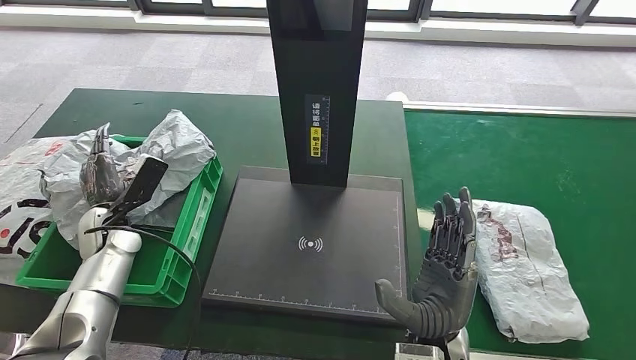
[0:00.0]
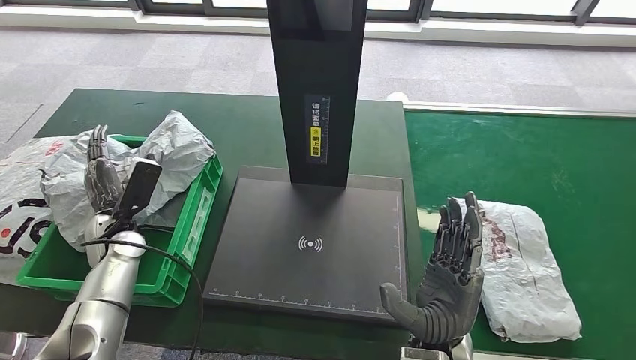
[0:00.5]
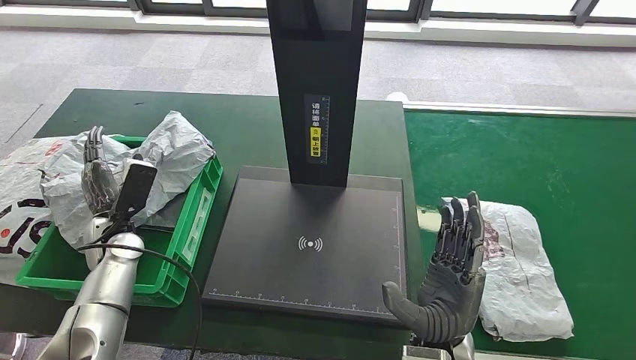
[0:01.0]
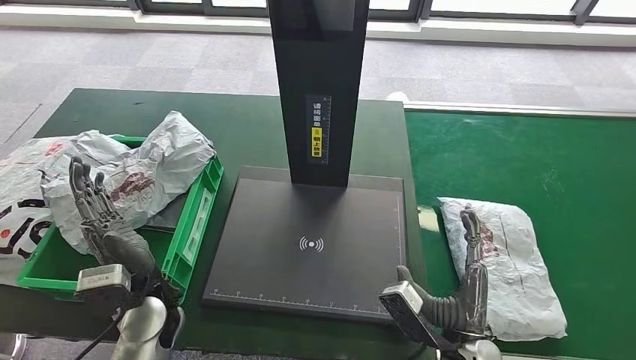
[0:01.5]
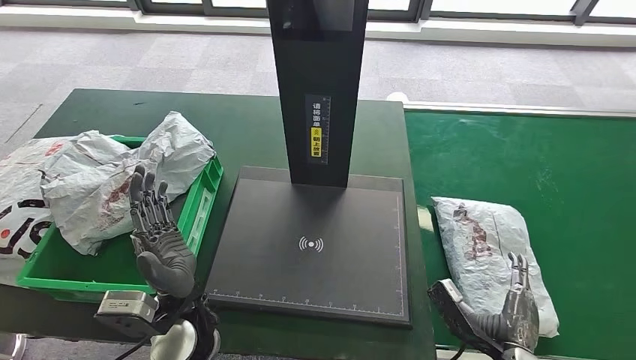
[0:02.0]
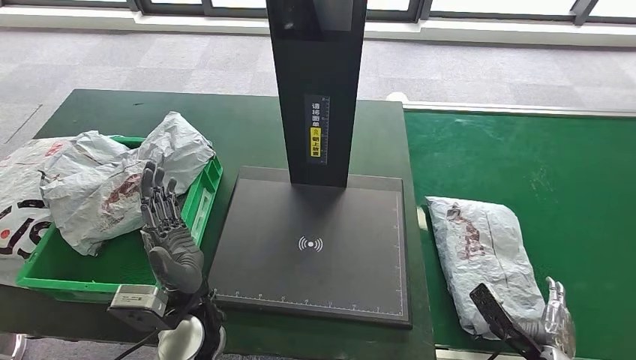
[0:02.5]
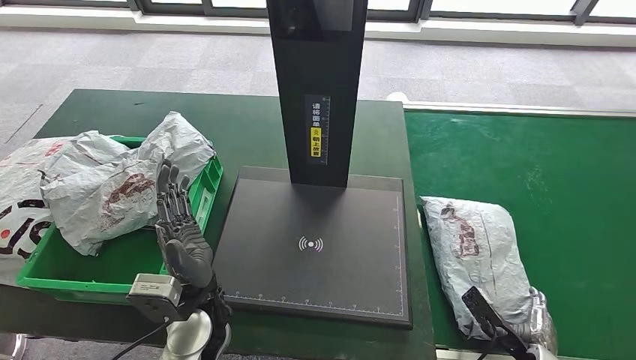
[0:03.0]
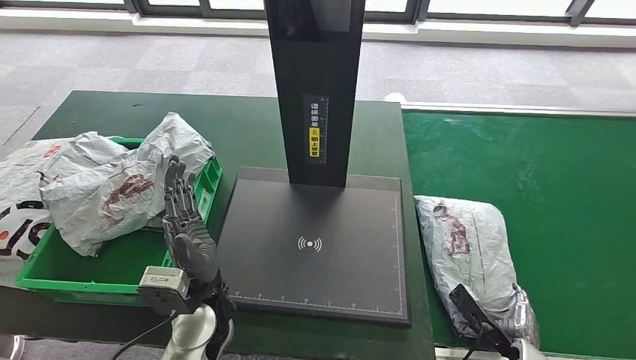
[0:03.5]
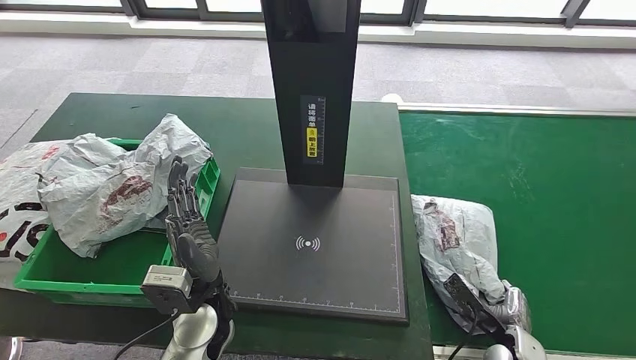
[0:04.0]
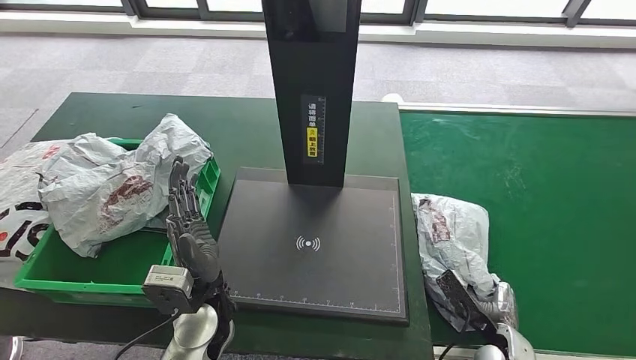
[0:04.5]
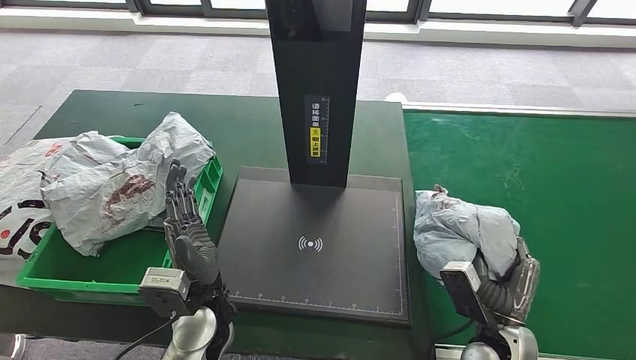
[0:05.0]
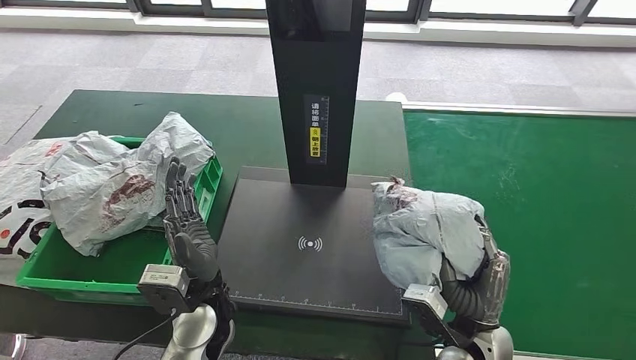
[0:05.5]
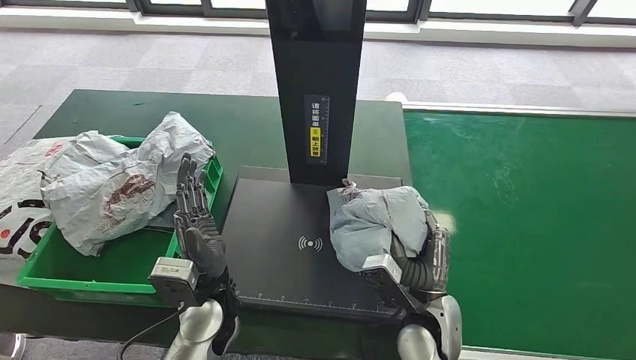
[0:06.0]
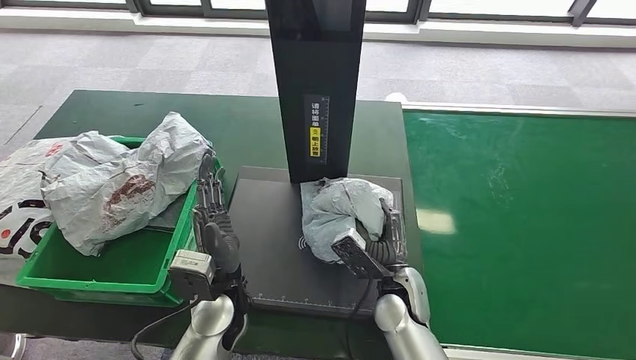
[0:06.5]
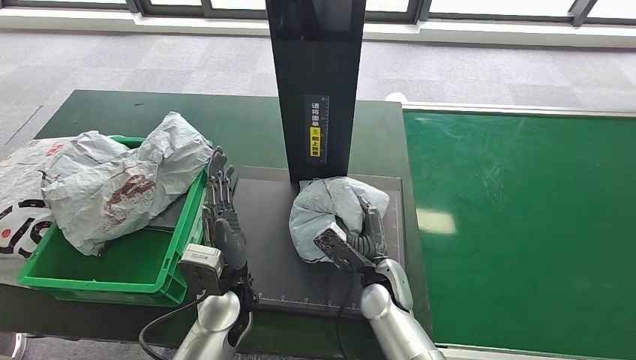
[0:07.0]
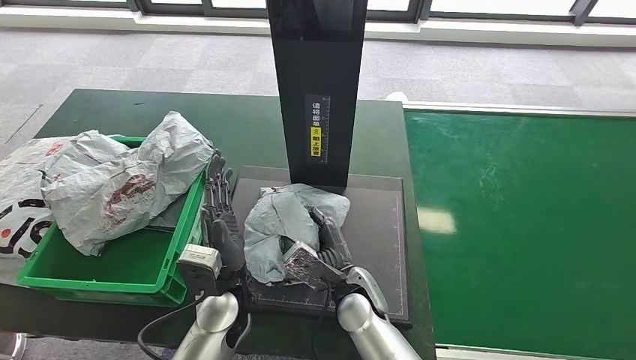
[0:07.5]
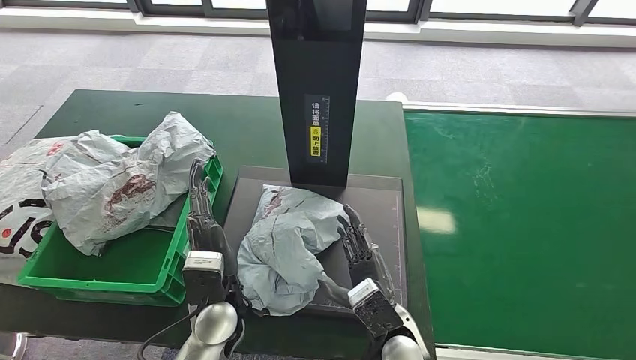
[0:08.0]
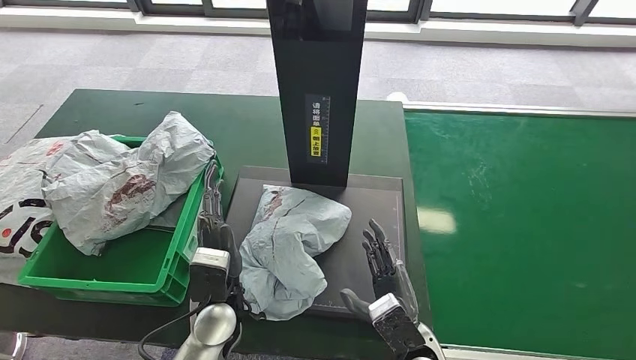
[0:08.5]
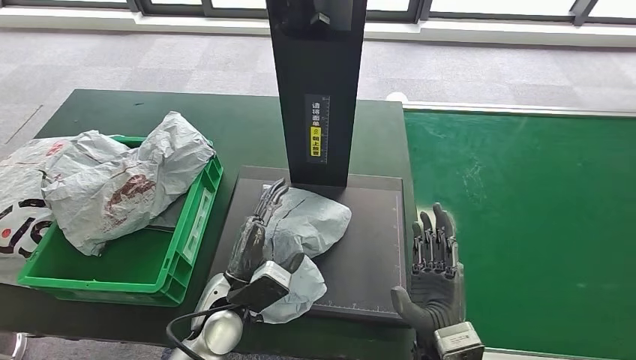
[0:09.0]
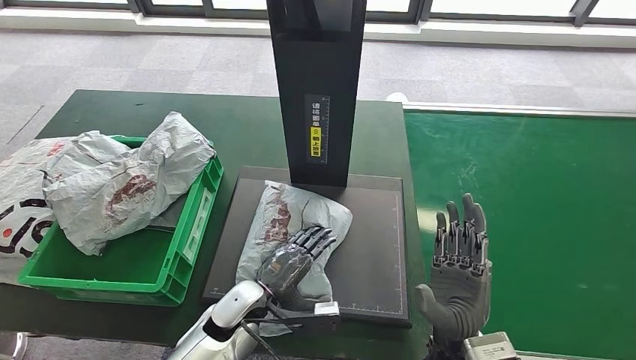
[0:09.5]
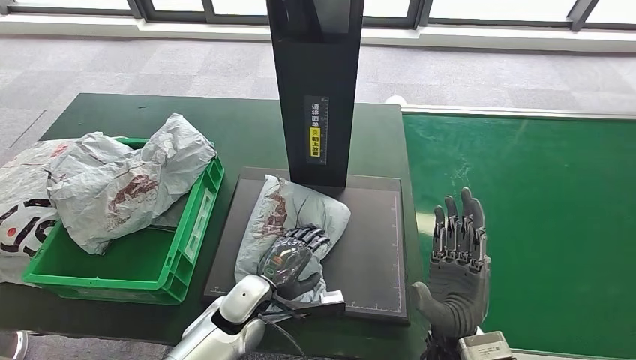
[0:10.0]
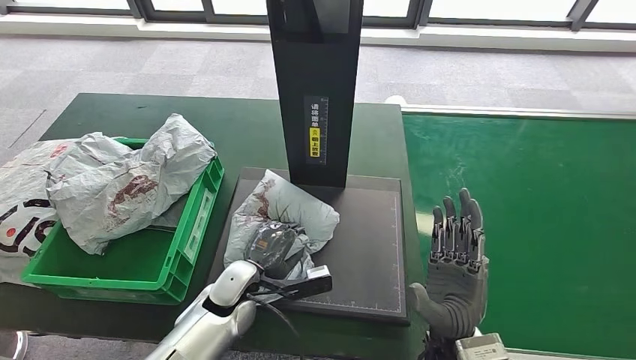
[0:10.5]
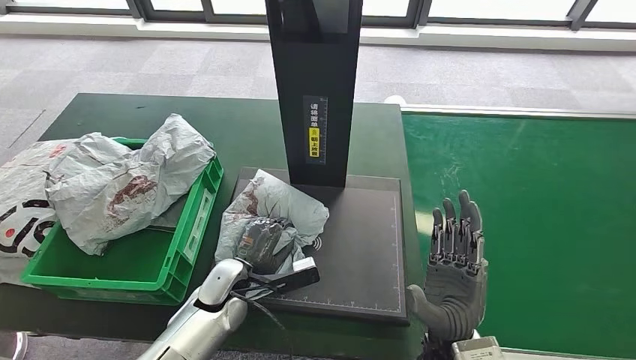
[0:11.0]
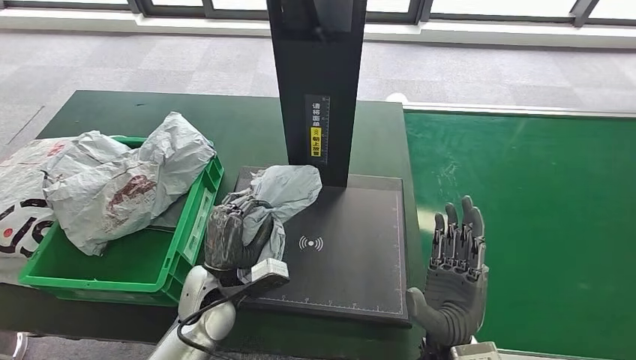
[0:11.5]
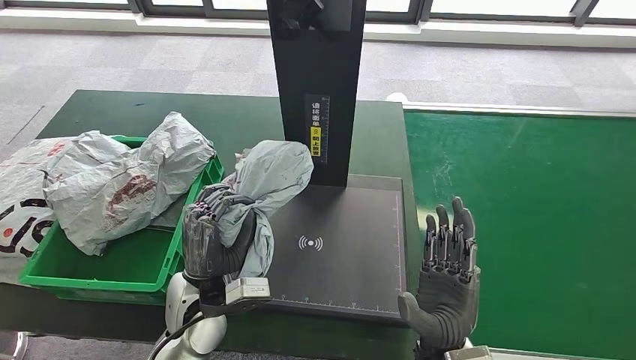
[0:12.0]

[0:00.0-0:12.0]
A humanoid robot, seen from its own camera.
Step, 0:03.0 to 0:05.5: Pick up the parcel from the conveyor belt.
Step, 0:06.0 to 0:08.0: Place the parcel onto the inbound machine.
Step, 0:08.5 to 0:11.5: Pick up the parcel from the inbound machine.
0:00.0 to 0:02.0: The left hand goes approximately 25 cm to the right and backward; the right hand moves to the right and downward, roughly 15 cm.
0:06.0 to 0:08.0: The right hand shifts roughly 5 cm to the left.

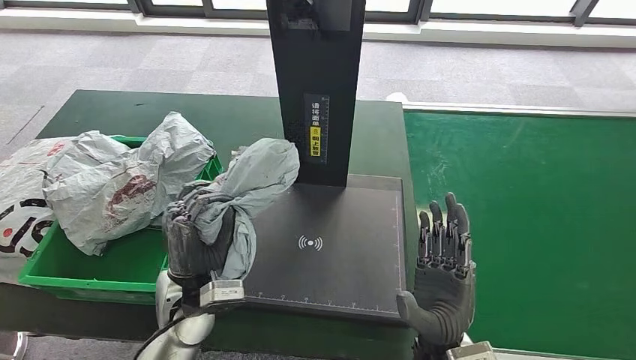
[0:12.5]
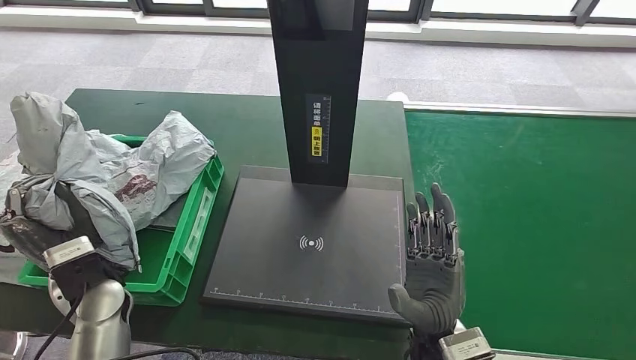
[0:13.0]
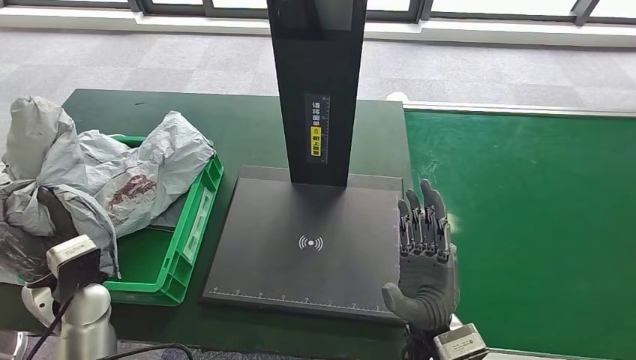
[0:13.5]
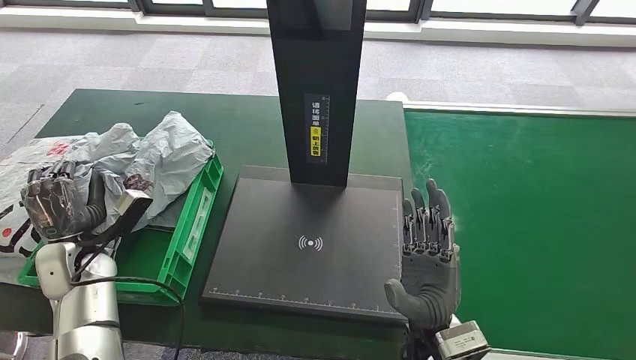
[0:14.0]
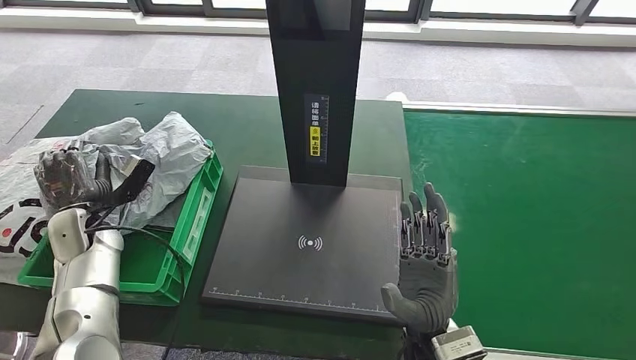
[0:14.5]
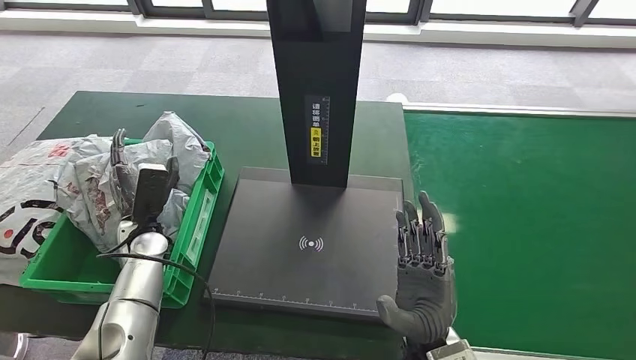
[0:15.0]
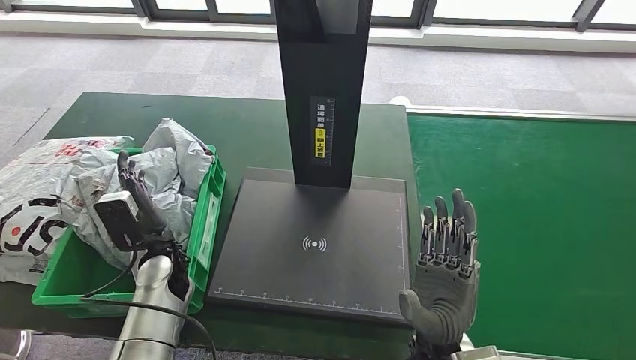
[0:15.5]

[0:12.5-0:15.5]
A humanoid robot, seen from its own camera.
Step, 0:12.5 to 0:15.5: Place the parcel into the delivery box.

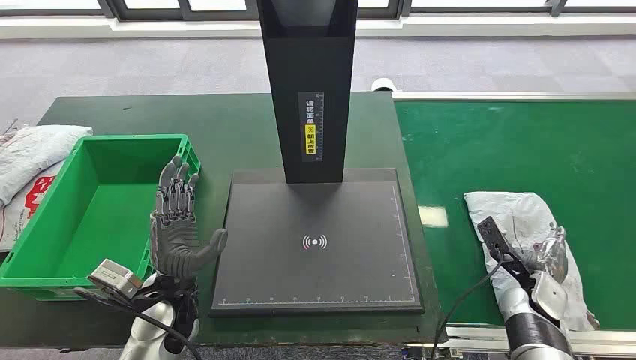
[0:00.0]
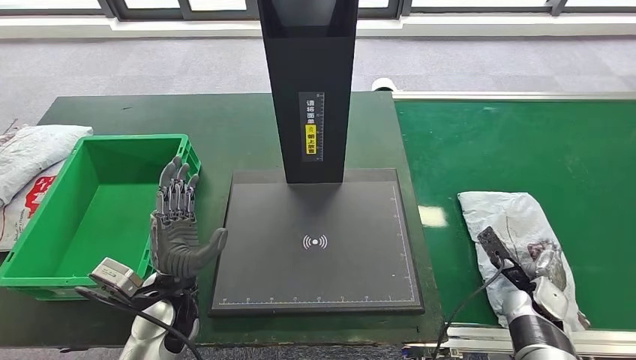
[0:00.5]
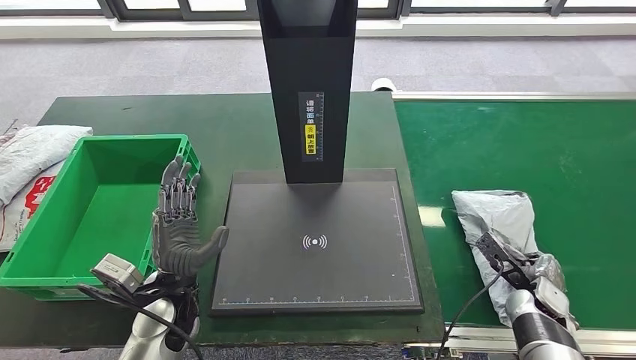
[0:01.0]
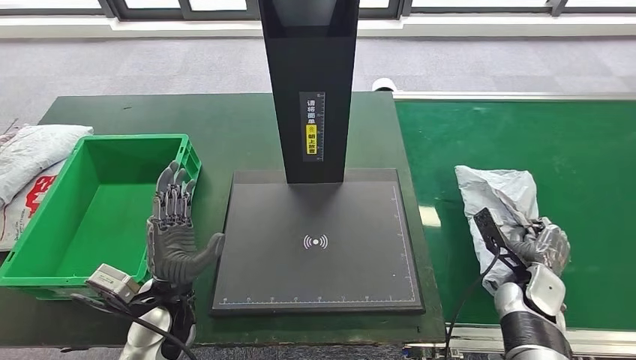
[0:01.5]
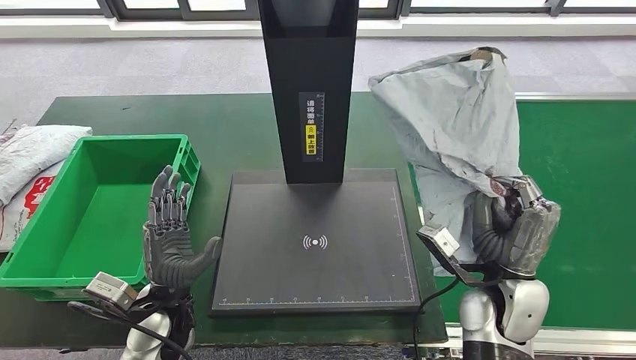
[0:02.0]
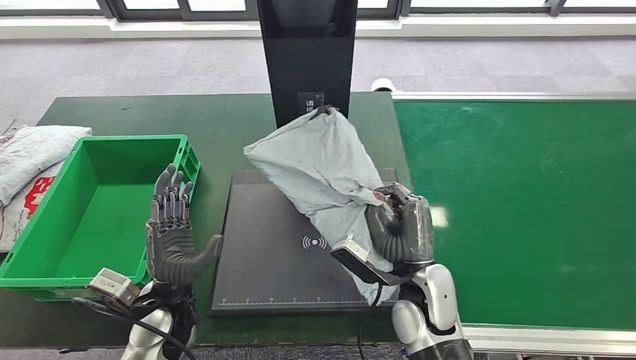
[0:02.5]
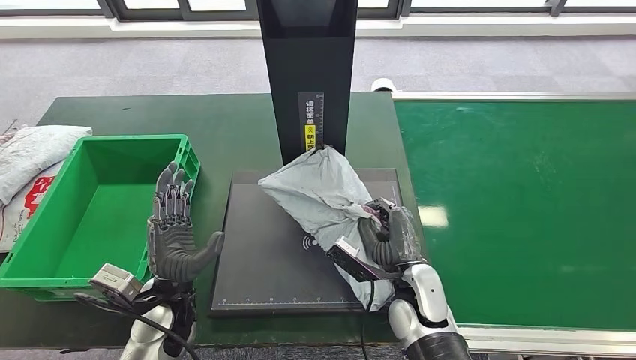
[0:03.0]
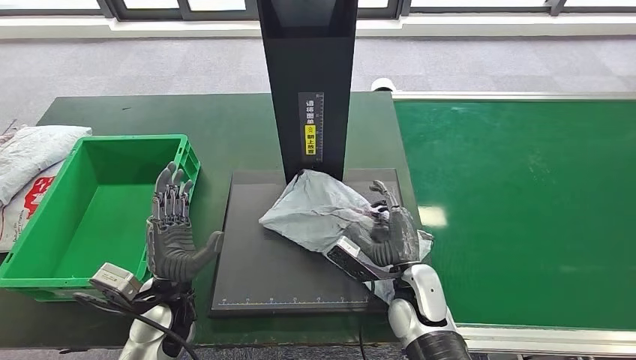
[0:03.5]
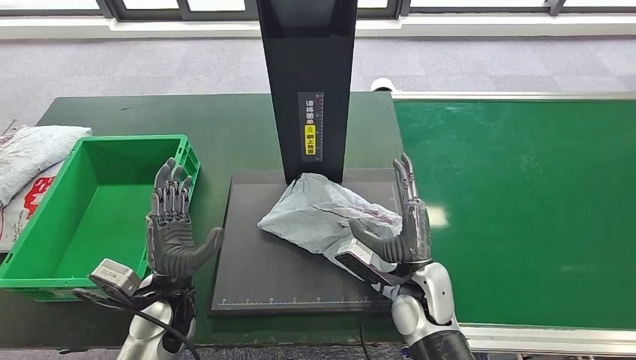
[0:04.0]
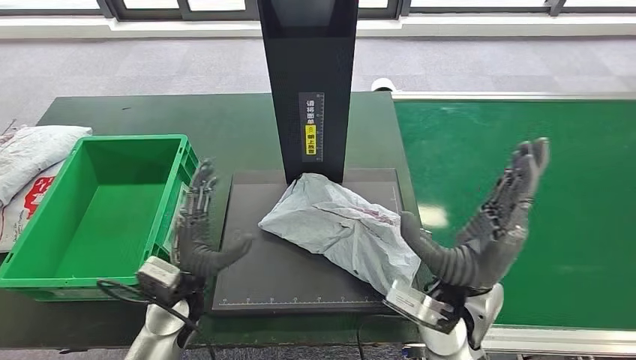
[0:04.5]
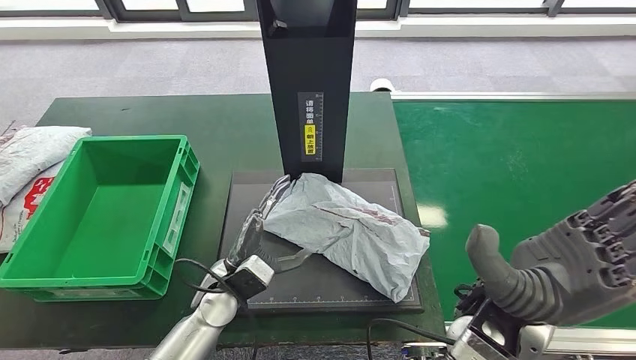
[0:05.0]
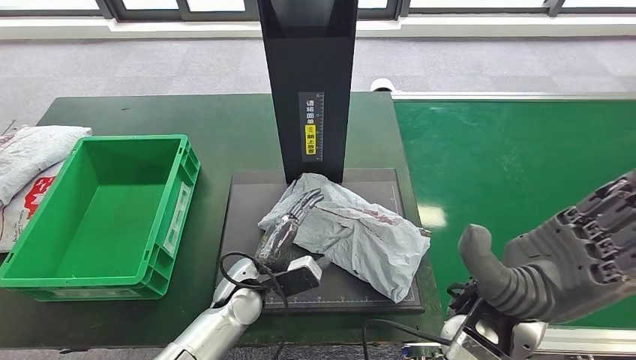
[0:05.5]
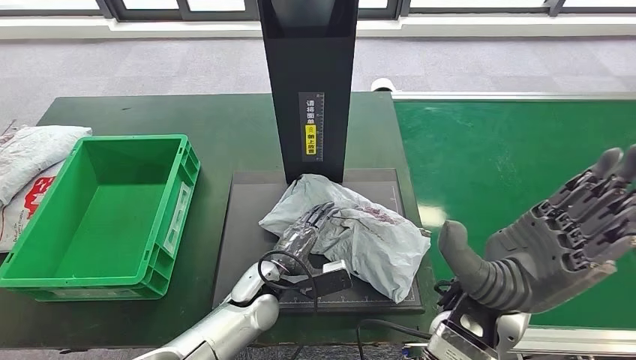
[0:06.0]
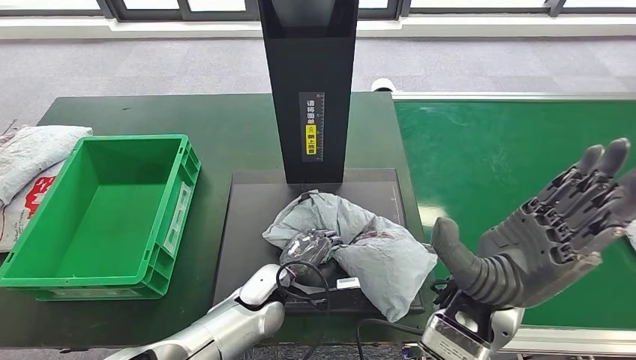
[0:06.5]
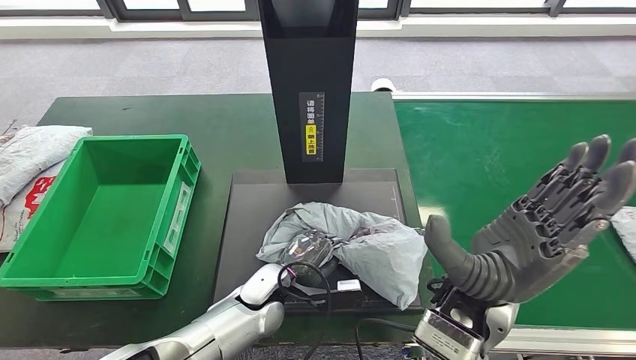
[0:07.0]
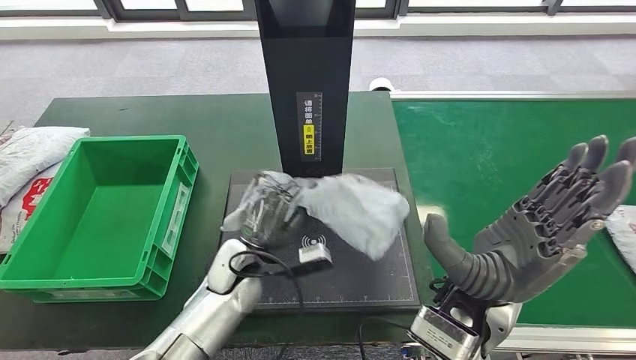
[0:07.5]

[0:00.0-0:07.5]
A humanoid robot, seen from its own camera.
Step, 0:00.0 to 0:02.0: Take the parcel off the conveyor belt.
Step, 0:02.5 to 0:04.0: Place the parcel onto the inbound machine.
Step, 0:04.5 to 0:07.5: Pick up the parcel from the inbound machine.
0:04.0 to 0:05.5: The left hand goes roughly 10 cm to the right; the right hand goes some 15 cm upward.
